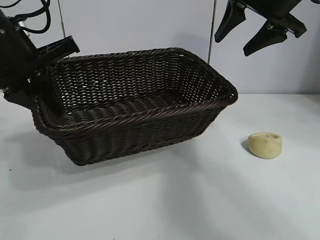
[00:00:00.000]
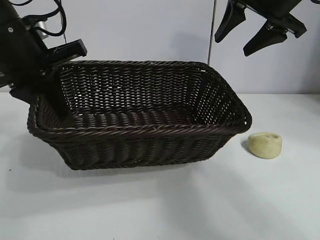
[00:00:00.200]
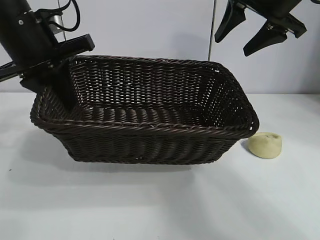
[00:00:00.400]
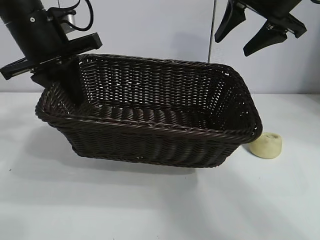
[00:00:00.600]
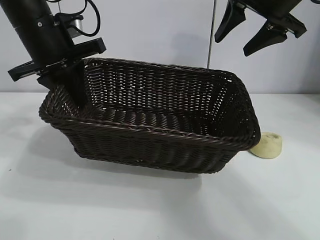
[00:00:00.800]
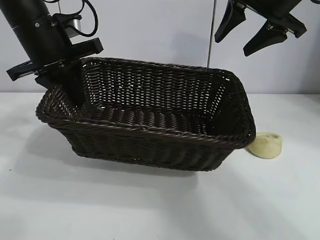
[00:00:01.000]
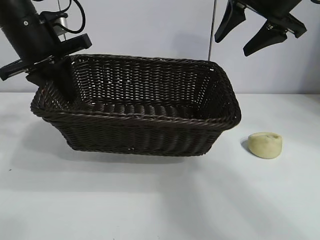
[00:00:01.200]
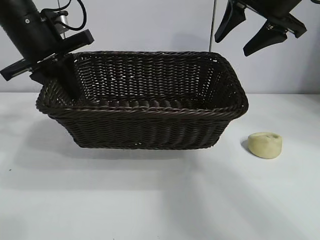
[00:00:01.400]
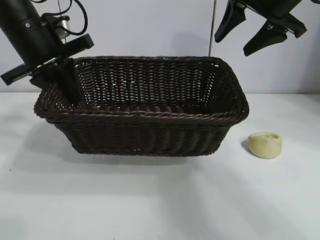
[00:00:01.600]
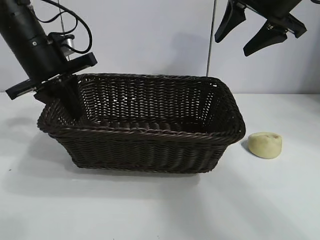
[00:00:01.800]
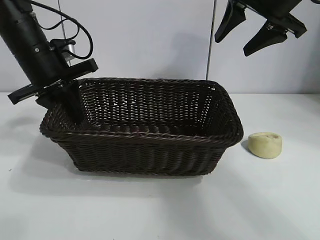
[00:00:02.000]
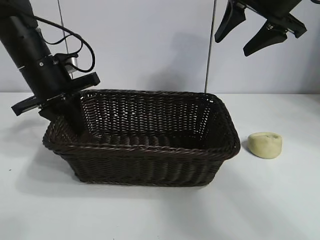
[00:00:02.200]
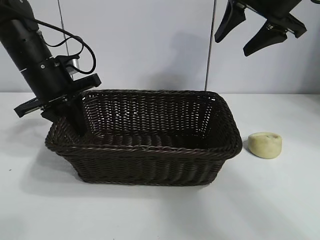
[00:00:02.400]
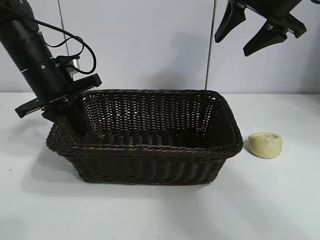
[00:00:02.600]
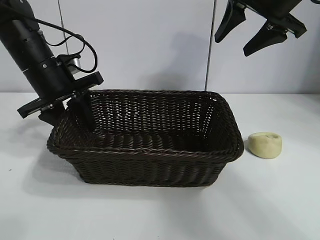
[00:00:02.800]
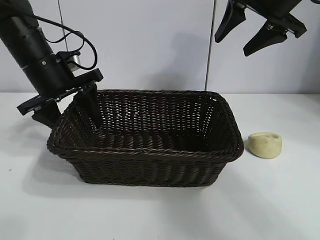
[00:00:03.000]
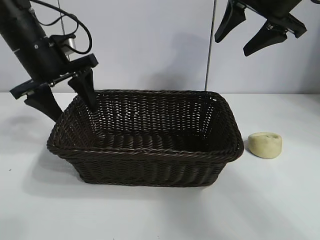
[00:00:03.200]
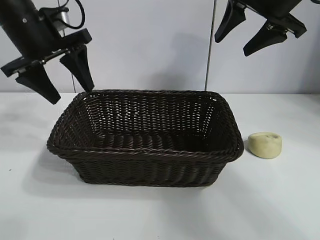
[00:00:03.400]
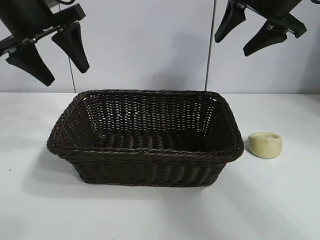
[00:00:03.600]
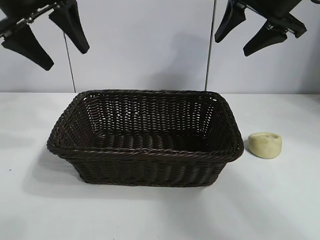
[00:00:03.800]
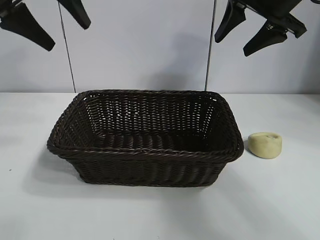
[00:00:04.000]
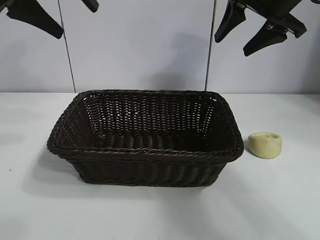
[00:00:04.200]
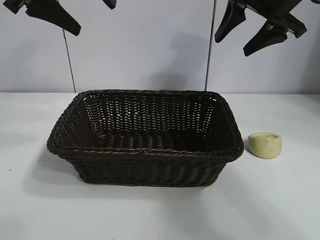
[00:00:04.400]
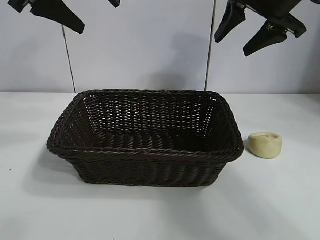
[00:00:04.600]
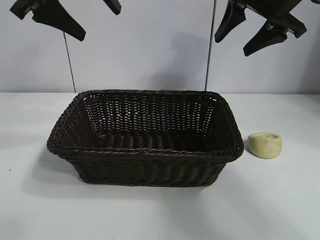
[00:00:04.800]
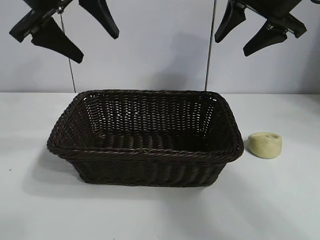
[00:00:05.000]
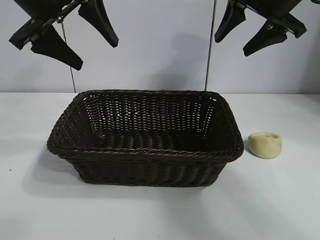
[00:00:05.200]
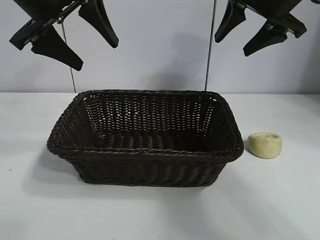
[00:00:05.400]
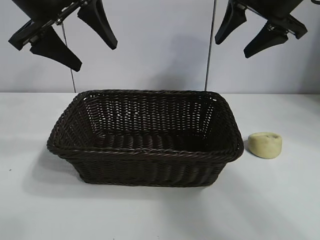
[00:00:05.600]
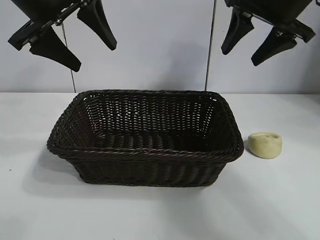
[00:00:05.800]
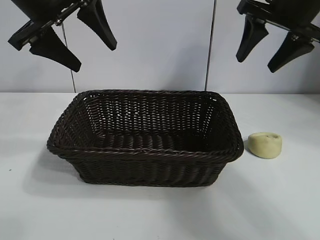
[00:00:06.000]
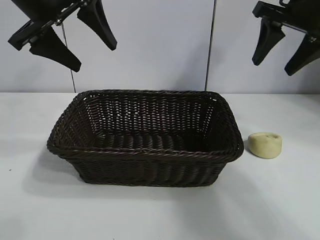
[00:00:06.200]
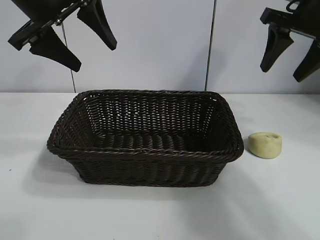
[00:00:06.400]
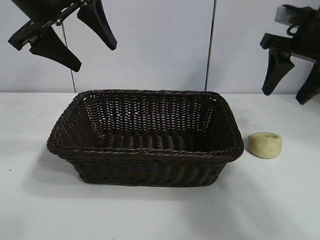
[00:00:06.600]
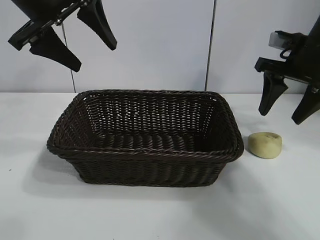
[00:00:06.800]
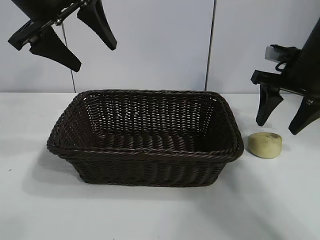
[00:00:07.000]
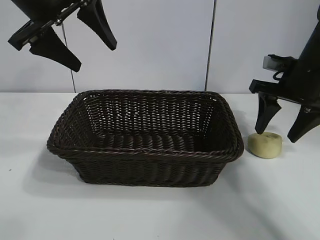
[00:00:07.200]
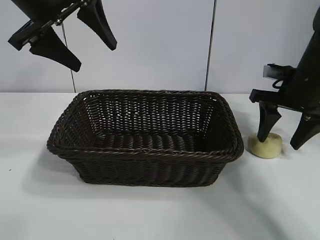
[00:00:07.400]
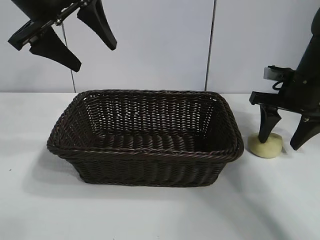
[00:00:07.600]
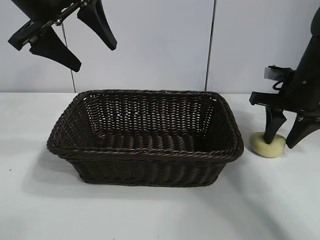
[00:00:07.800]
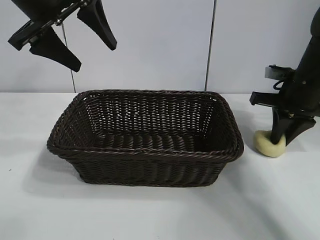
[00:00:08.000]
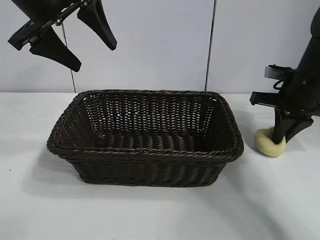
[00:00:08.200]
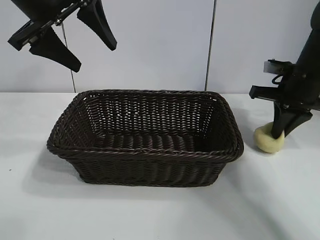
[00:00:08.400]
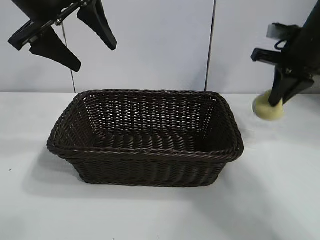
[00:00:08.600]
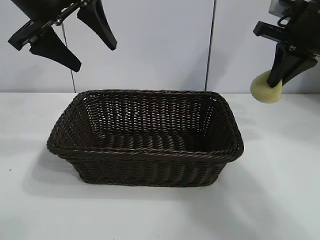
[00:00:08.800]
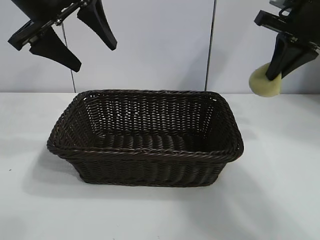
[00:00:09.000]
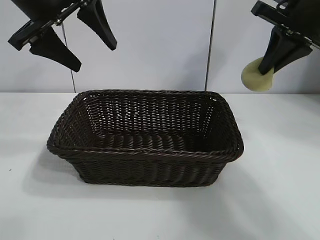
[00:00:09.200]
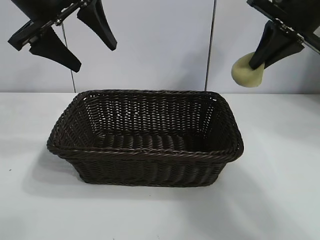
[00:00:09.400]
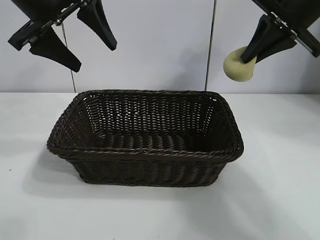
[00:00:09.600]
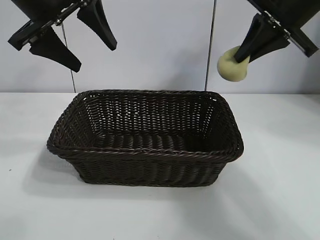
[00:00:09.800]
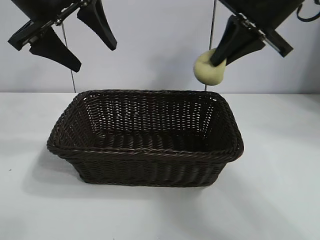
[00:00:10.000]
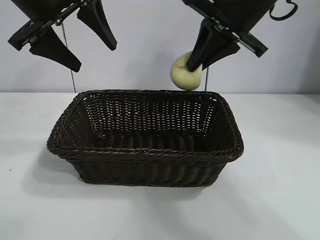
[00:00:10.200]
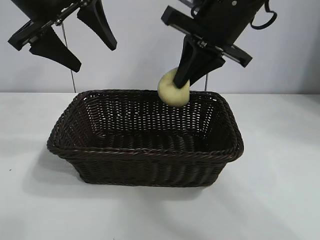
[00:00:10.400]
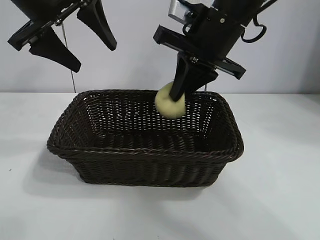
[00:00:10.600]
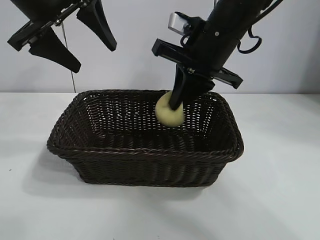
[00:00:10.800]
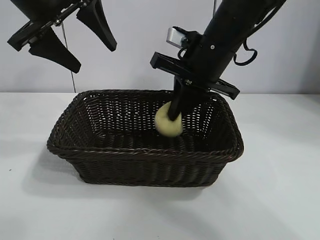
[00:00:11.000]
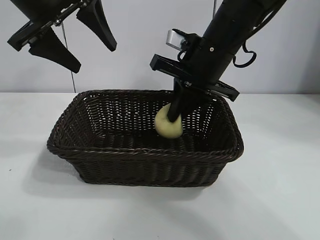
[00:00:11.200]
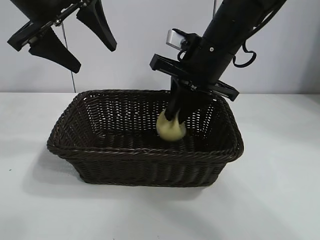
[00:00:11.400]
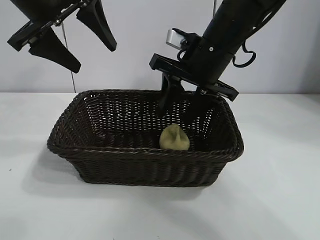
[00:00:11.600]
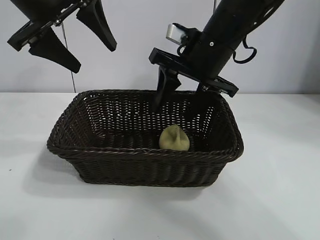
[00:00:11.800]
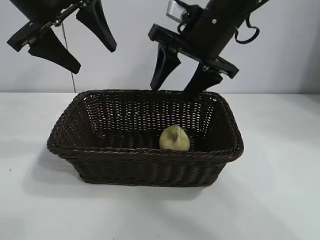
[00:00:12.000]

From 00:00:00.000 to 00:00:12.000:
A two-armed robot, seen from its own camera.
Task of the whole recording: pick up the egg yolk pastry and put it into the basket.
Step, from 00:00:00.000 to 00:00:03.000: Place the basket in the center of view with left gripper.
Step, from 00:00:03.200 to 00:00:08.200: Grasp egg yolk pastry with right gripper.
Step, from 00:00:08.400 to 00:00:11.400: Place the egg yolk pastry in the basket with right gripper.
